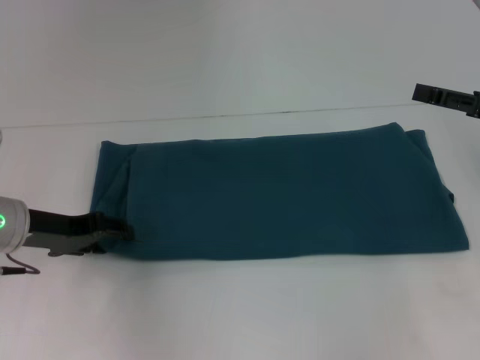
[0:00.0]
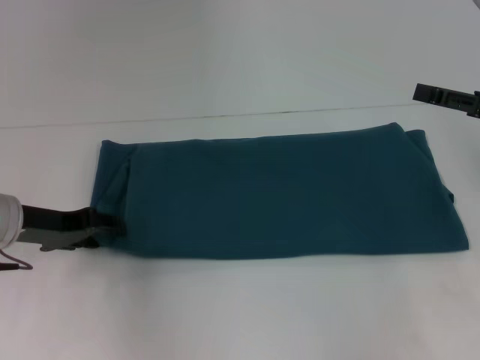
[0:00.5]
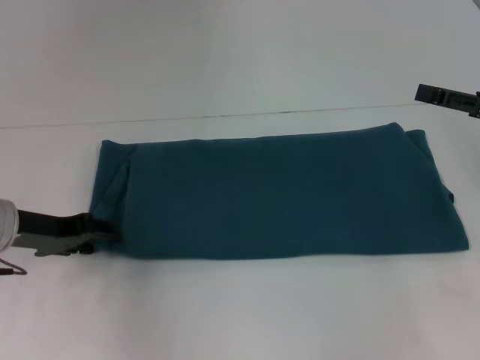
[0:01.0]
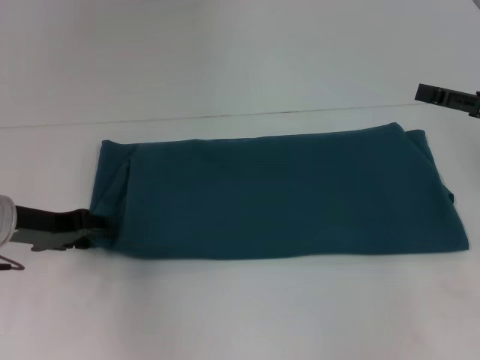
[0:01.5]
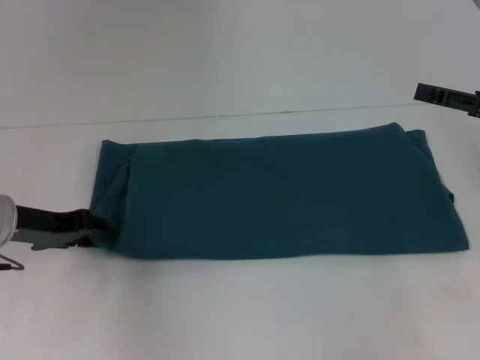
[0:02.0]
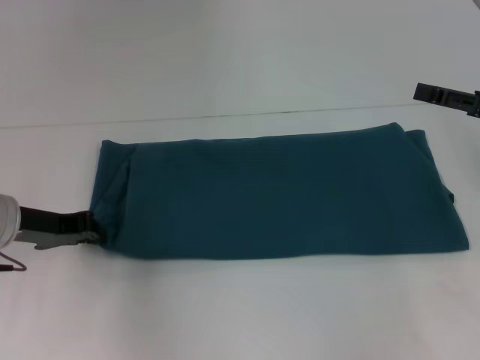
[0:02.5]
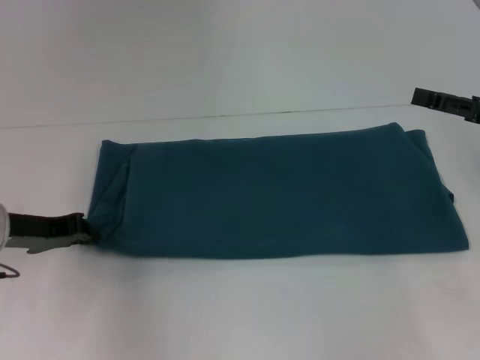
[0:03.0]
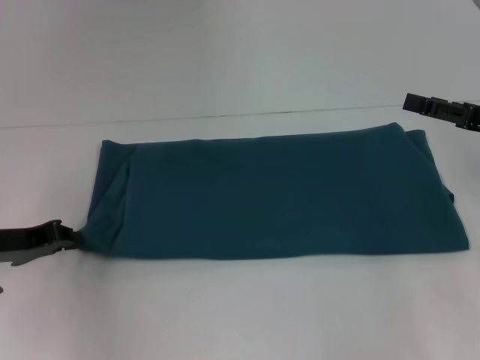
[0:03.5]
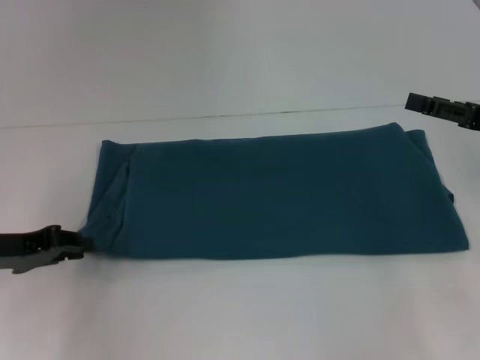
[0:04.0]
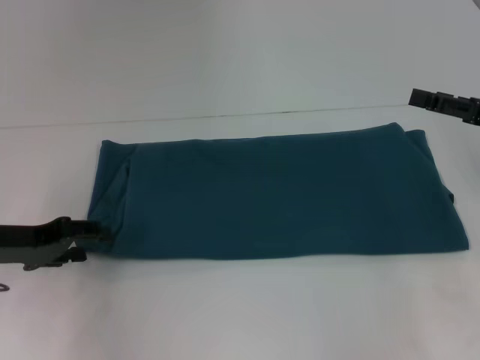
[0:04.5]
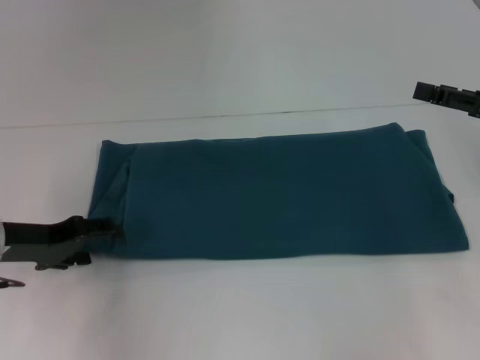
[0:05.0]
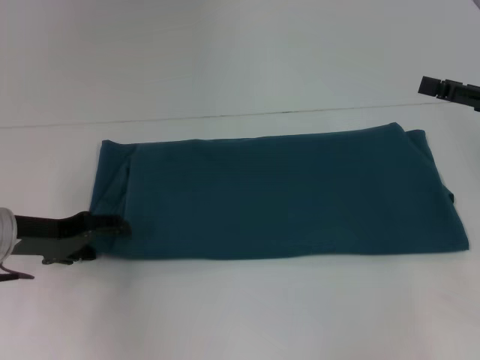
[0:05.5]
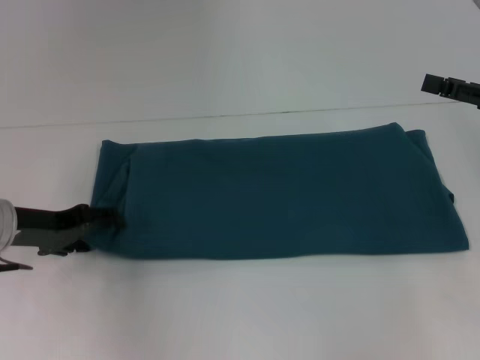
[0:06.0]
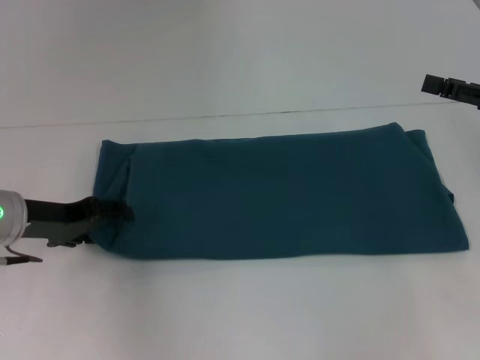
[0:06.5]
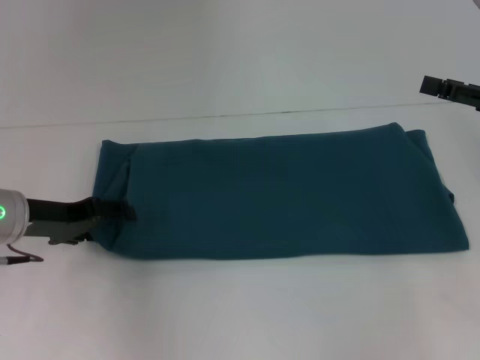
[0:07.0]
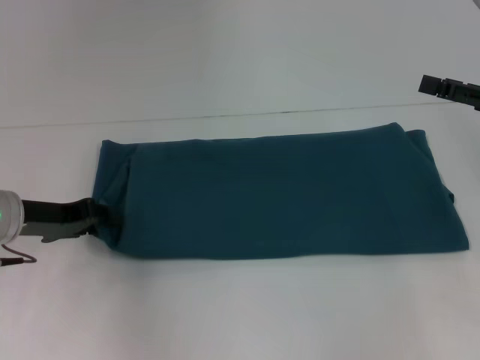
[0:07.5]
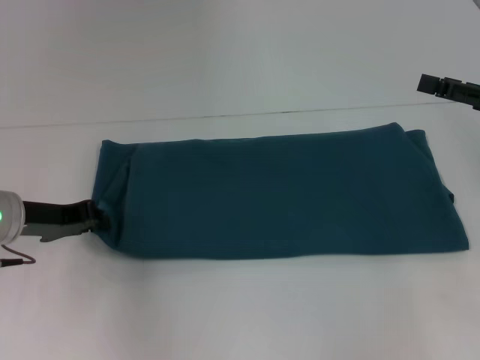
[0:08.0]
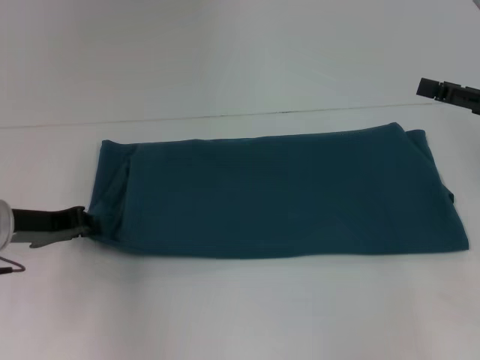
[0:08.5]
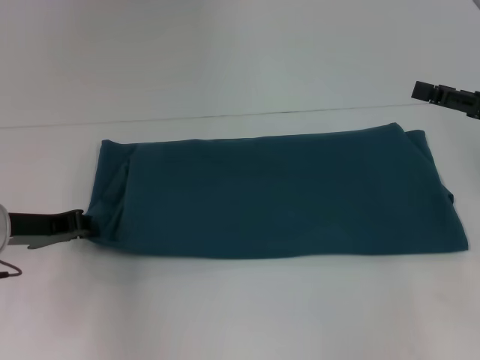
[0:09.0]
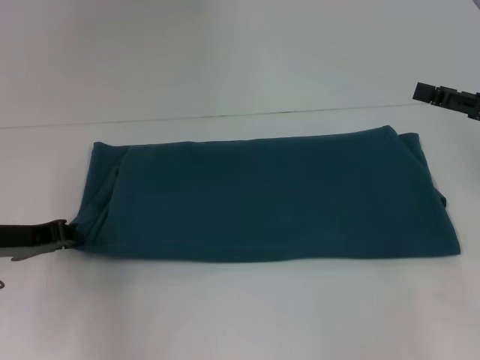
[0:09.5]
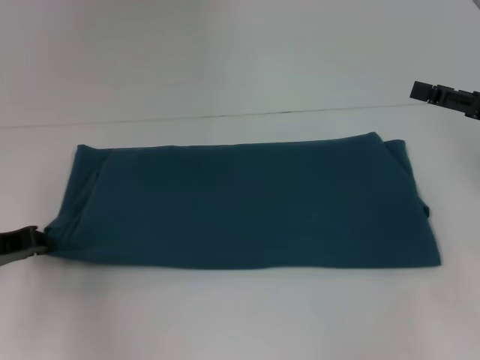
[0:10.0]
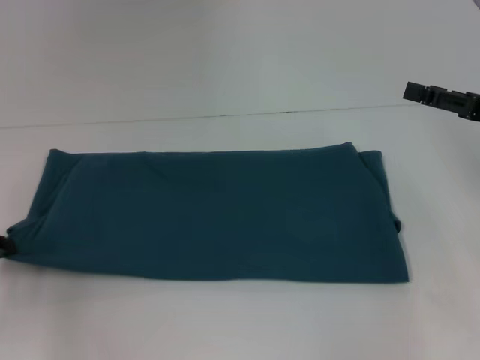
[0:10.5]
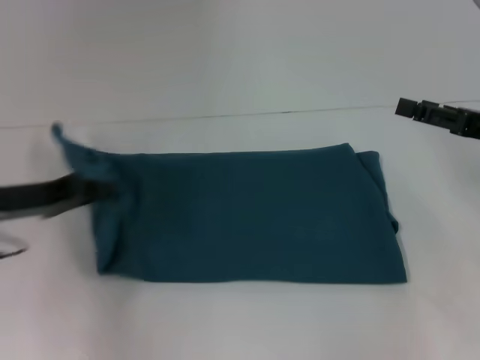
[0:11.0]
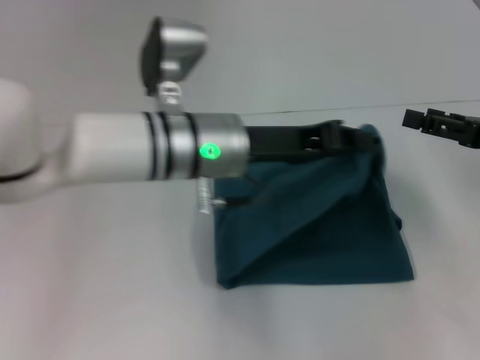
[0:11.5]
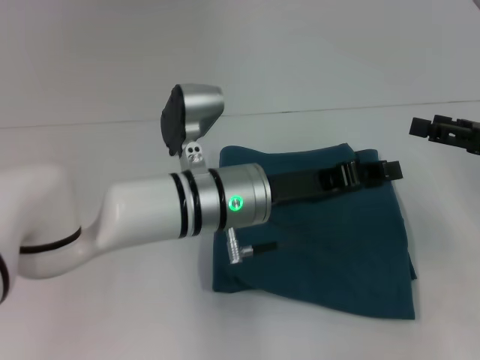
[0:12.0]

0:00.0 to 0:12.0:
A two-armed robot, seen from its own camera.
0:00.0 to 0:02.0: The grippers make only small movements.
0:02.0 to 0:04.0: The left gripper changes place by some 5 cm, and closes.
0:04.0 to 0:06.0: The left gripper ends up some 5 cm from where it was, and opens.
0:06.0 to 0:08.0: The left gripper closes its fingers.
0:08.0 to 0:10.0: The left gripper goes some 5 cm to the left.
0:10.0 to 0:12.0: The left gripper is displaced to the right by approximately 30 cm.

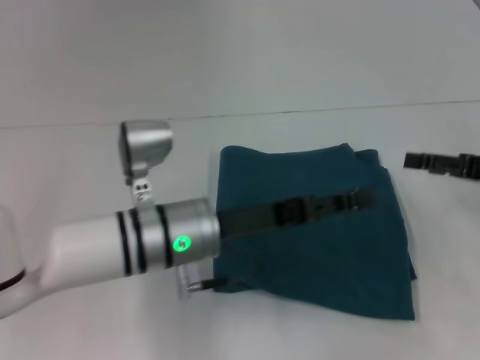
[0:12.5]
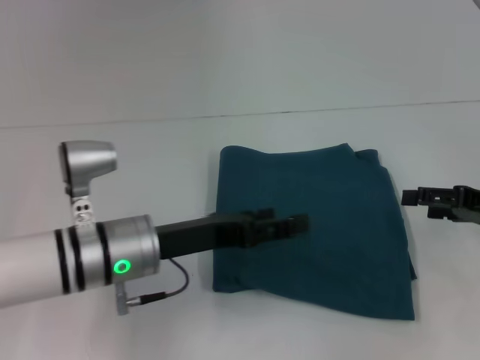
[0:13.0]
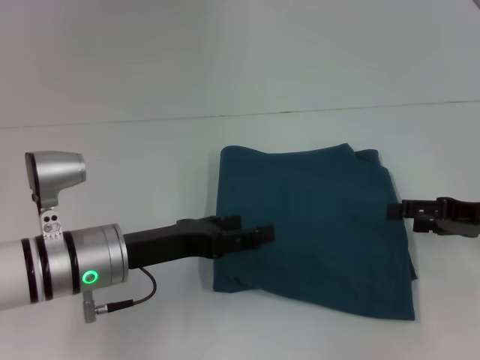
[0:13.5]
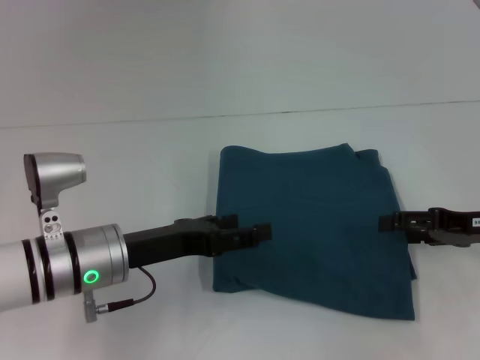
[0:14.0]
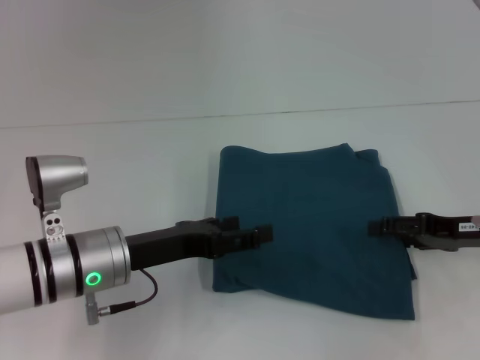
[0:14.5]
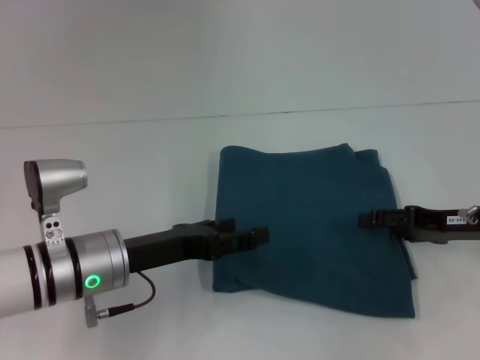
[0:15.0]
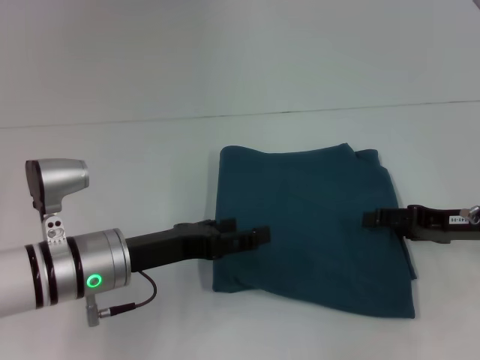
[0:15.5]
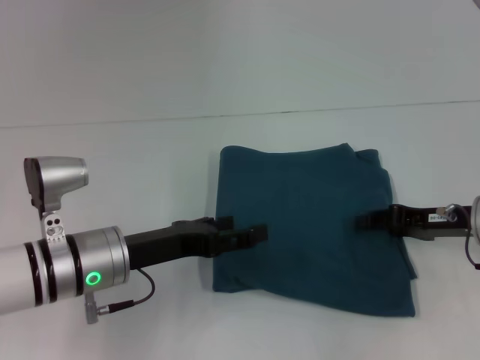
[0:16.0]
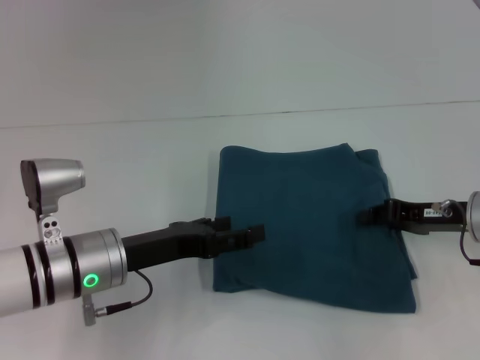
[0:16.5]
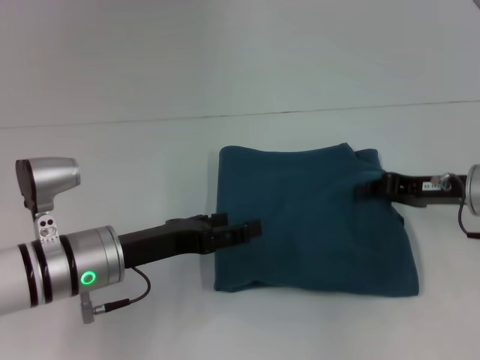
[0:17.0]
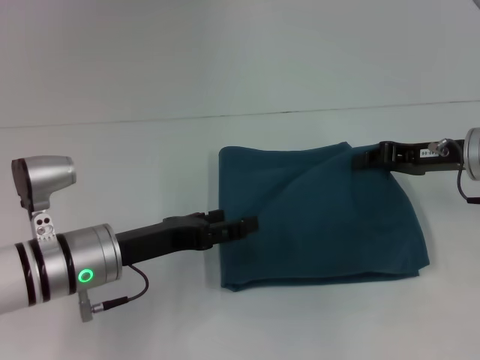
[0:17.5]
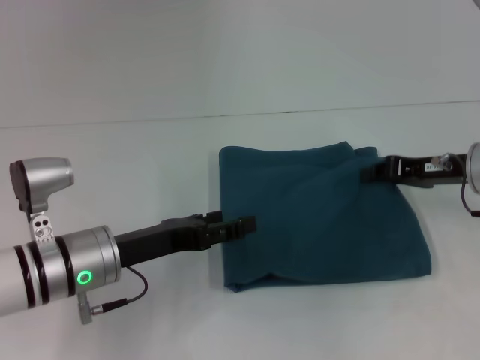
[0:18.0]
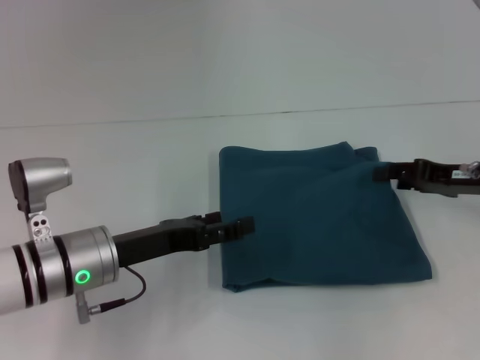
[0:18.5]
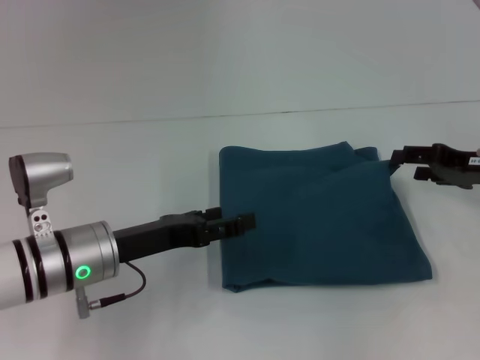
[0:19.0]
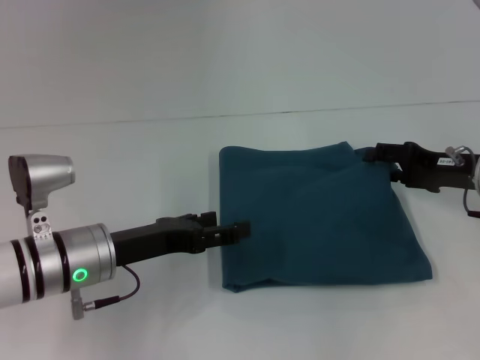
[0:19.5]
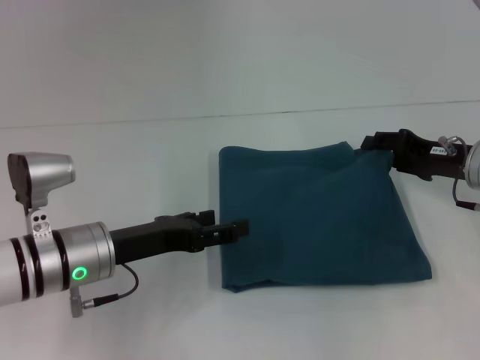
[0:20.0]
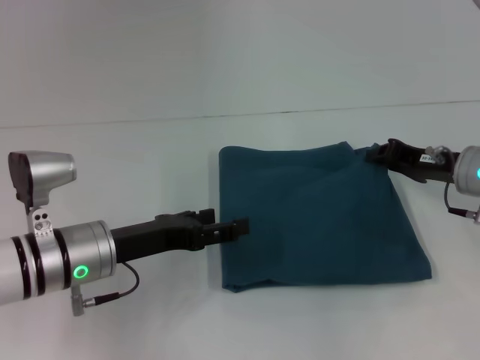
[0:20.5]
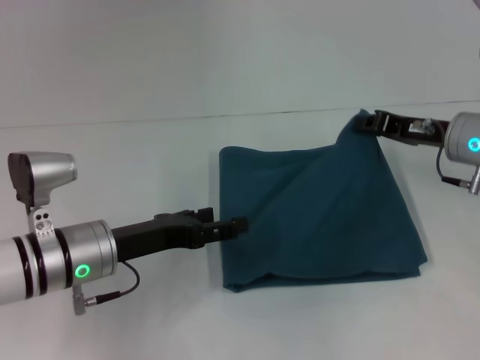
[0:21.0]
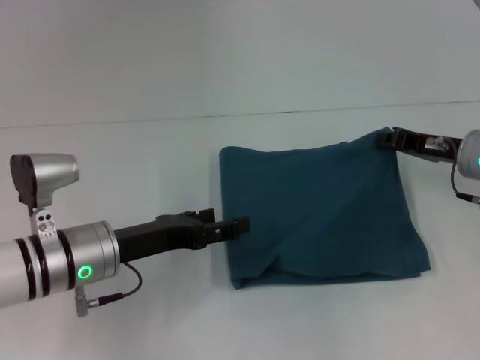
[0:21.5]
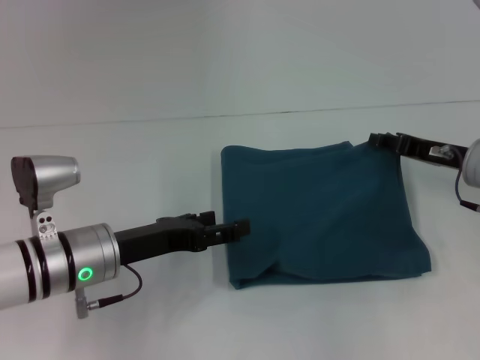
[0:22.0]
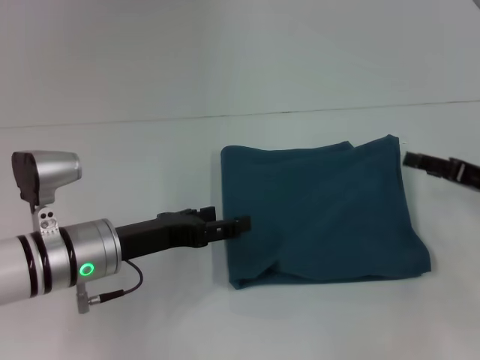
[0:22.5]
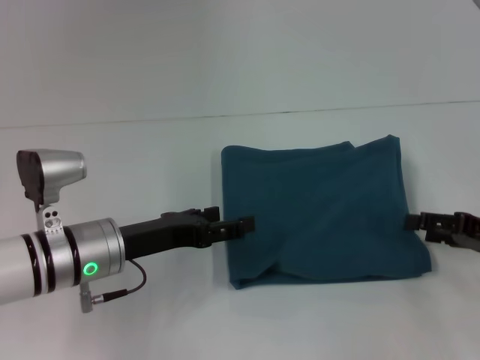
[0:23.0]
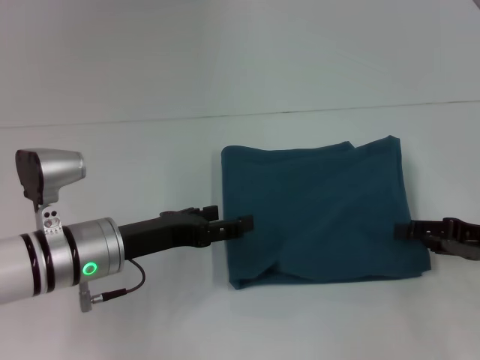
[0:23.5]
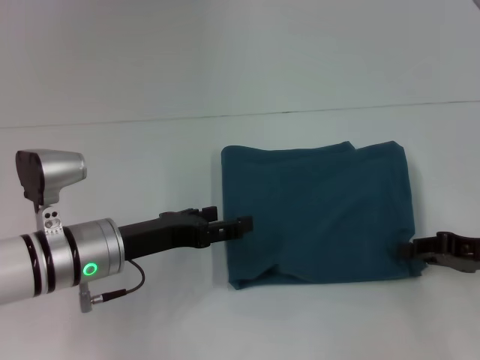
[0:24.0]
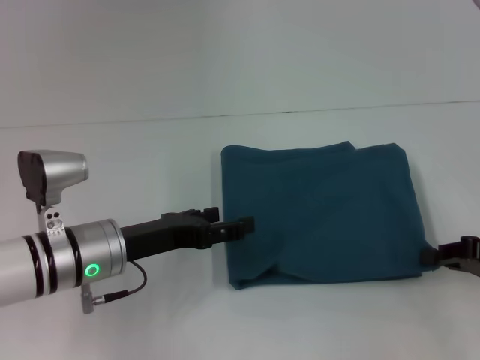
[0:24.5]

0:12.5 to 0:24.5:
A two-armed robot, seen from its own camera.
0:12.5 to 0:14.5: The left gripper goes some 10 cm to the left. The right gripper ends up some 5 cm from where it was.
0:14.5 to 0:16.5: The right gripper closes its fingers.
0:16.5 to 0:18.5: The right gripper opens up.
0:18.5 to 0:20.5: There are only small adjustments of the grippers.
0:20.5 to 0:22.5: The right gripper travels to the right and backward by some 10 cm, and opens.
0:22.5 to 0:24.5: The right gripper heads backward, covering roughly 5 cm, and closes up.

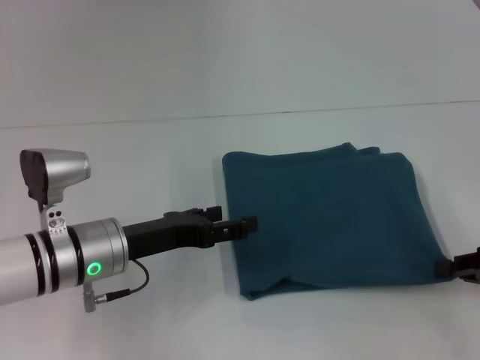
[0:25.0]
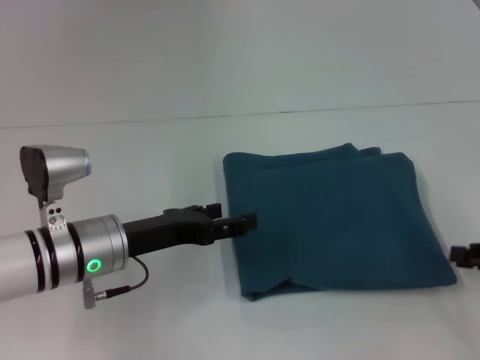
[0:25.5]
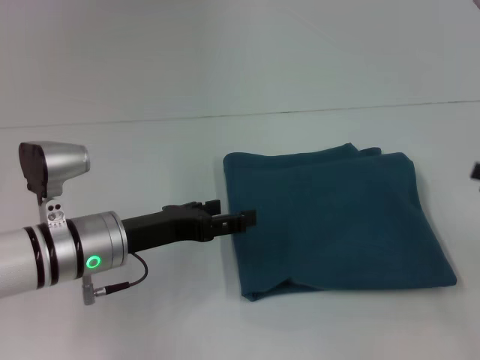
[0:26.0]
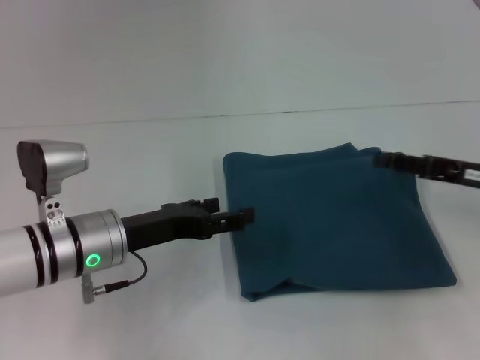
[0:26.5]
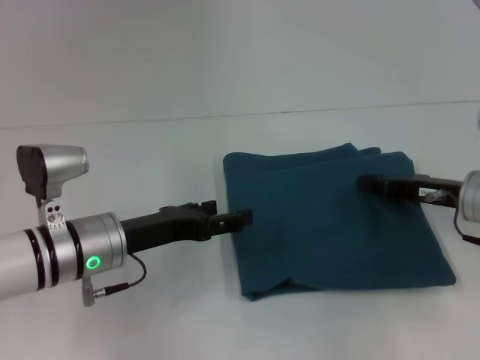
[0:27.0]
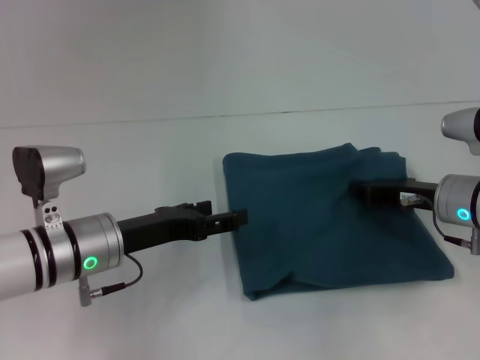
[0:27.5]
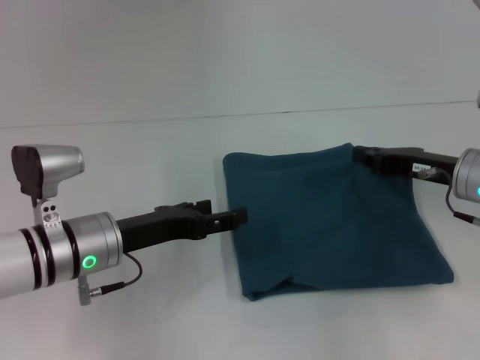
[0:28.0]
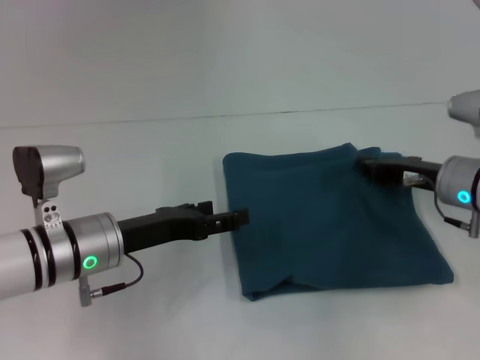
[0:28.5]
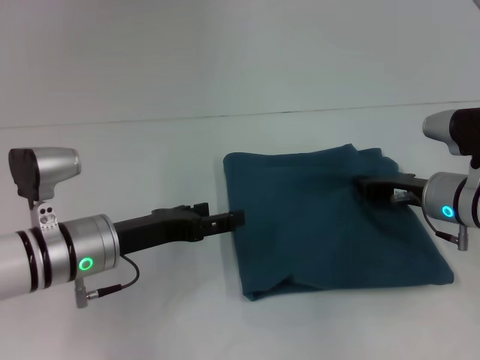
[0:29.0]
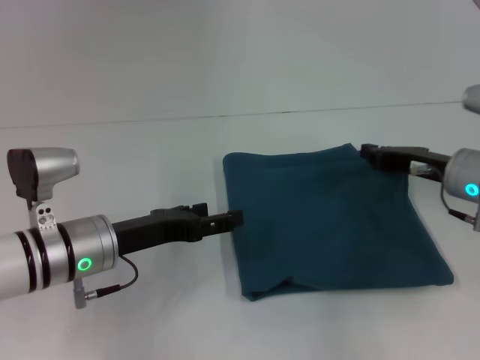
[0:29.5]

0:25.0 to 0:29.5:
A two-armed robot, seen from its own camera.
0:25.0 to 0:27.0: The right gripper goes about 10 cm to the left and forward, and opens, then closes once more.
0:27.0 to 0:29.5: The grippers stay close to where they were, moving slightly.
